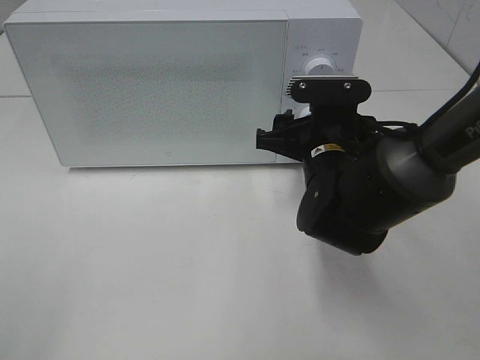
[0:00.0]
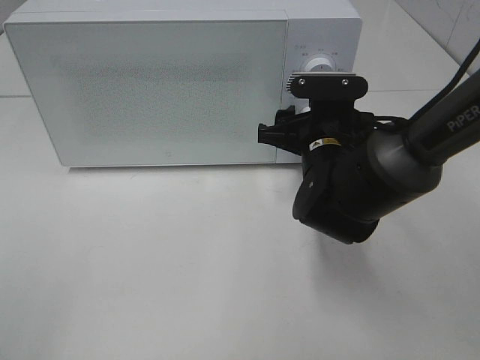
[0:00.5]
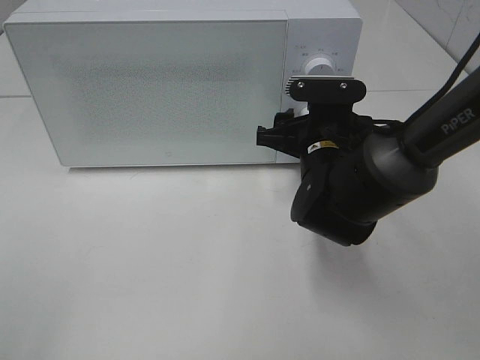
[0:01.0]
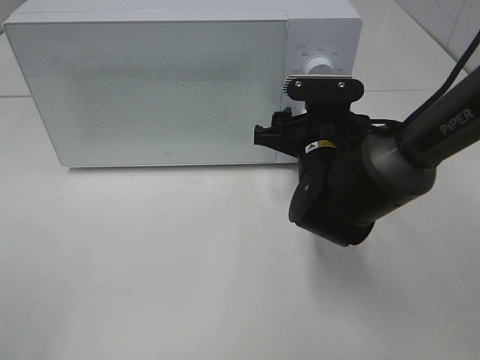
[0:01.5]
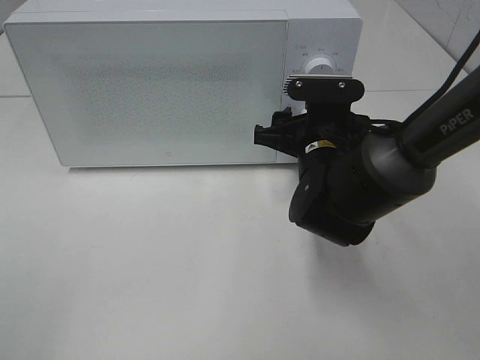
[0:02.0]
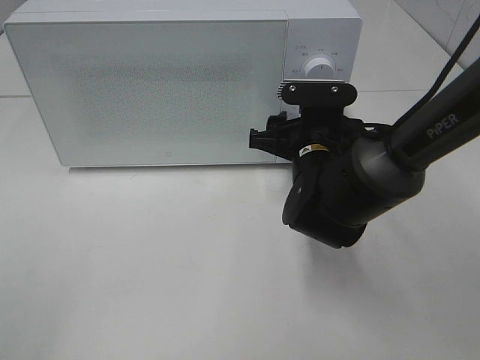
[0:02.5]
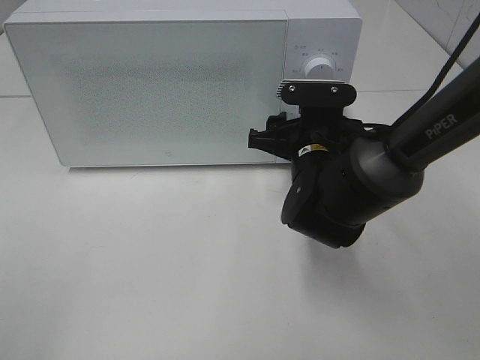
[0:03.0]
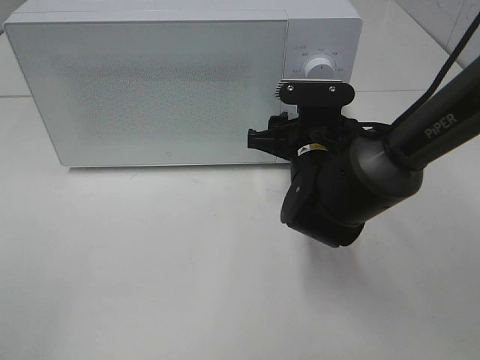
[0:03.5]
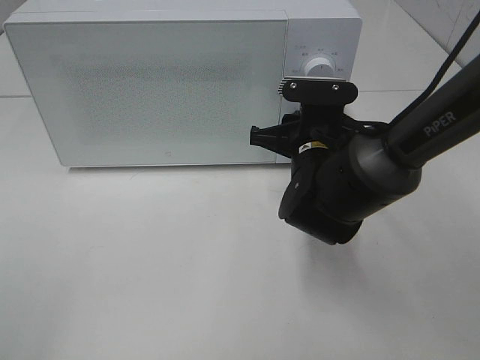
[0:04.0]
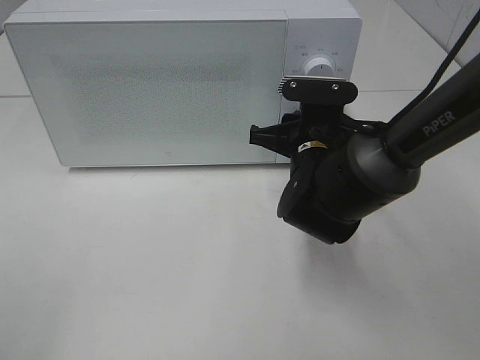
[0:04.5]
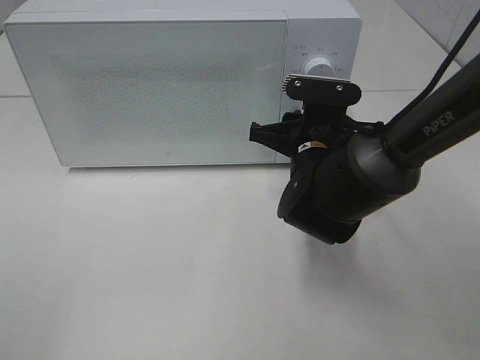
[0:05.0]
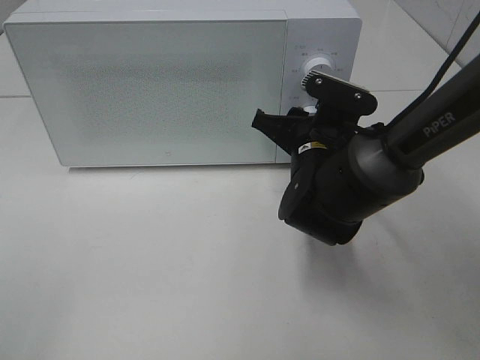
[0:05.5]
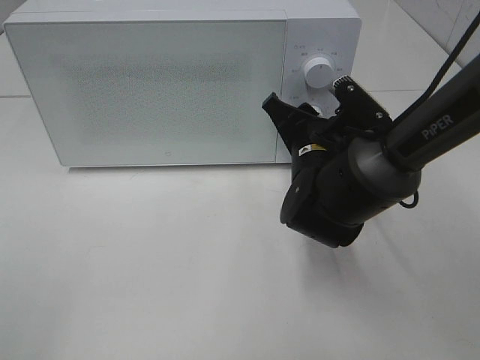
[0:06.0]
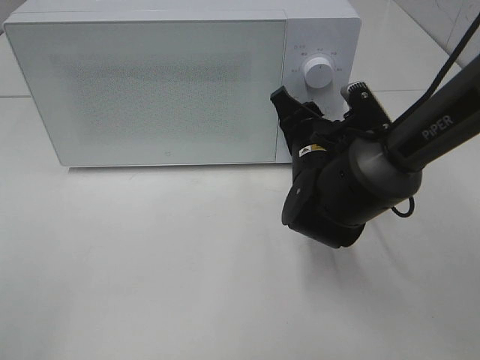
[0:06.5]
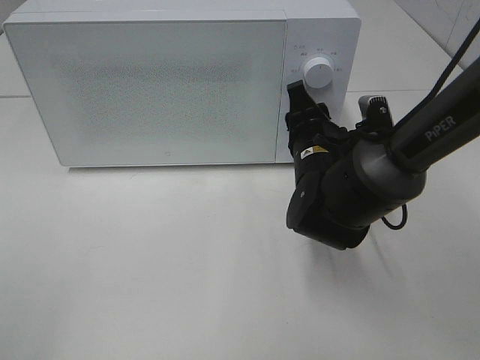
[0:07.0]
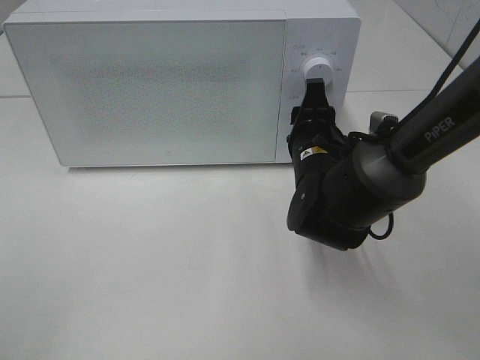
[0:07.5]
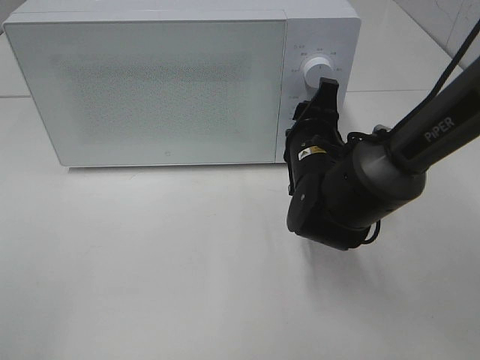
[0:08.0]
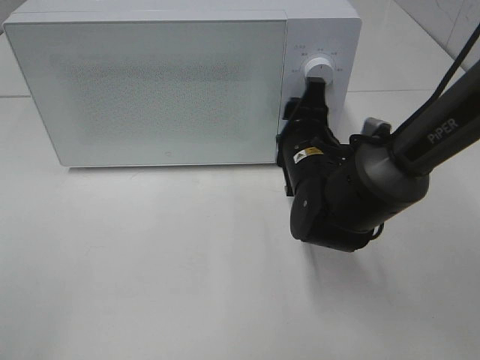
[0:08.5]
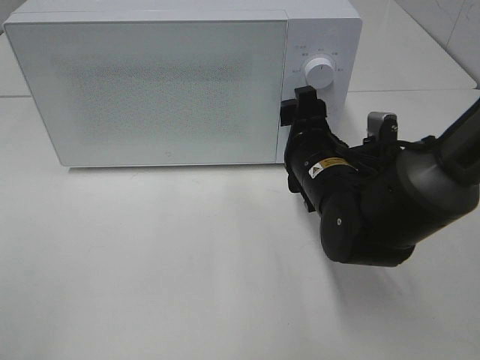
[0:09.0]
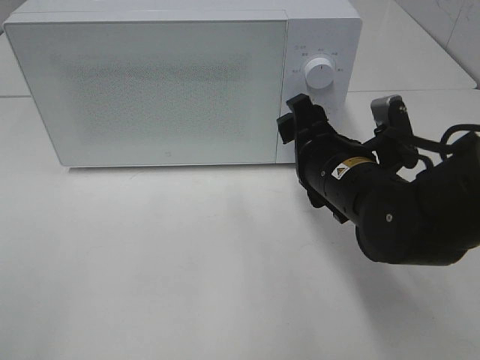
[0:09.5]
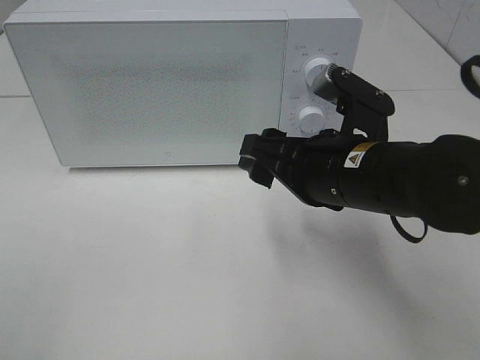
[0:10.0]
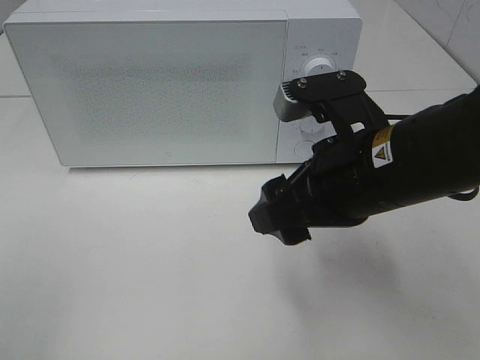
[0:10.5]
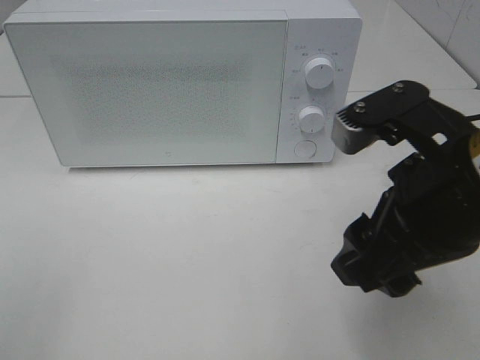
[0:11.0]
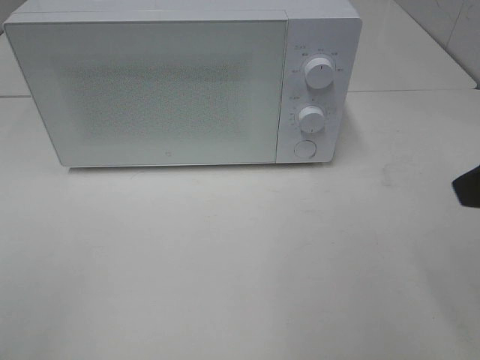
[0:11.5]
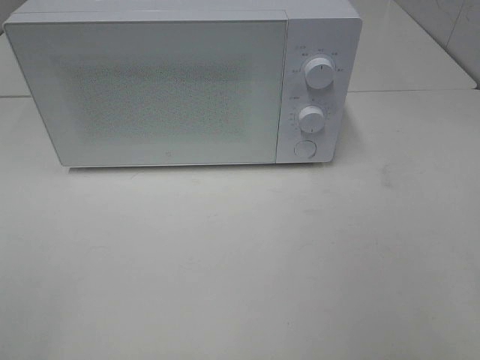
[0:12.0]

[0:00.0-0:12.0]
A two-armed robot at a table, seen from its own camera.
Task of the whole recording: Heat the burger.
Step, 0:00.0 to 0:08.5: Right hand: twist timer button.
0:00.0 to 0:02.0: There are only small adjustments of the grippers.
0:02.0 to 0:04.0: Both grippers stay about where they are.
0:08.0 to 0:10.0: The right gripper is displaced backward and upward by about 10 cm.
0:10.0 to 0:12.0: The right gripper is displaced to the right, backward and upward by roughly 25 cm.

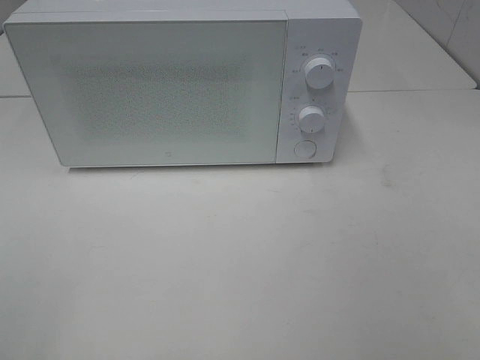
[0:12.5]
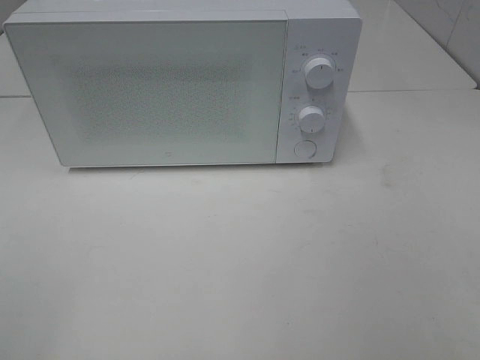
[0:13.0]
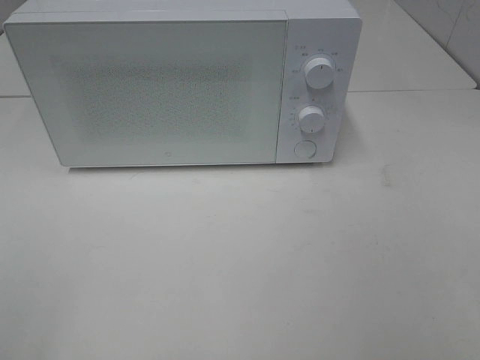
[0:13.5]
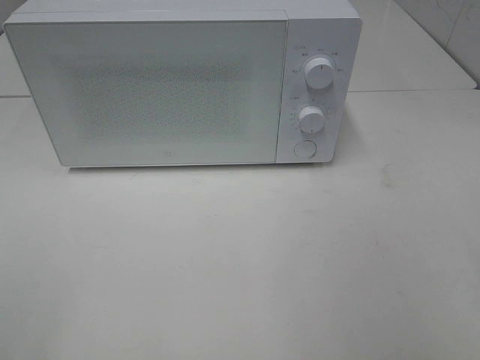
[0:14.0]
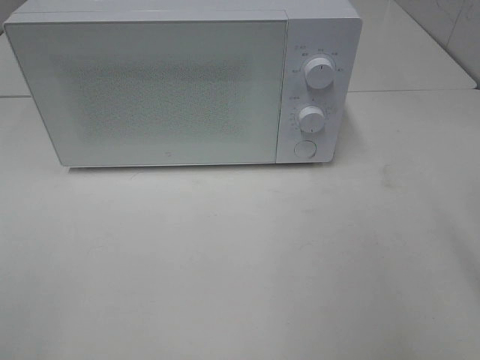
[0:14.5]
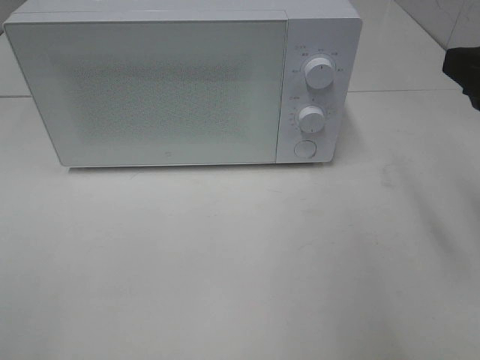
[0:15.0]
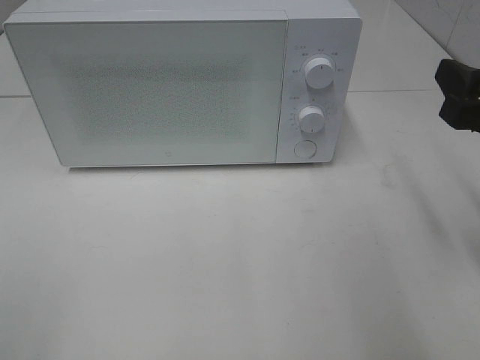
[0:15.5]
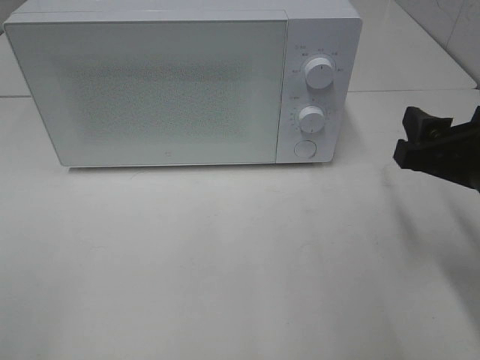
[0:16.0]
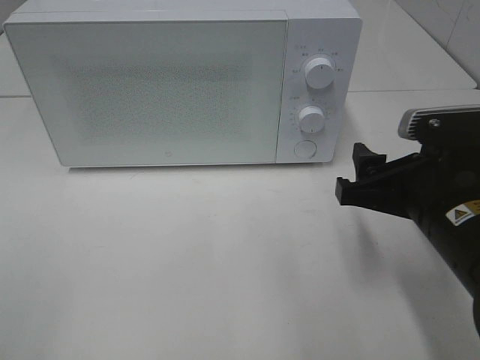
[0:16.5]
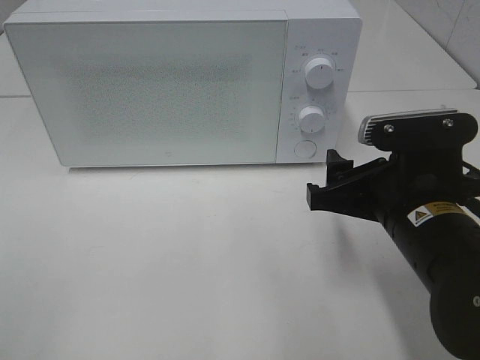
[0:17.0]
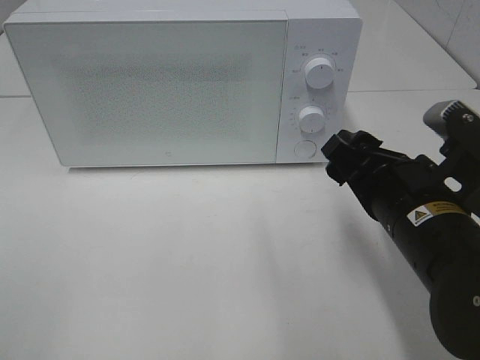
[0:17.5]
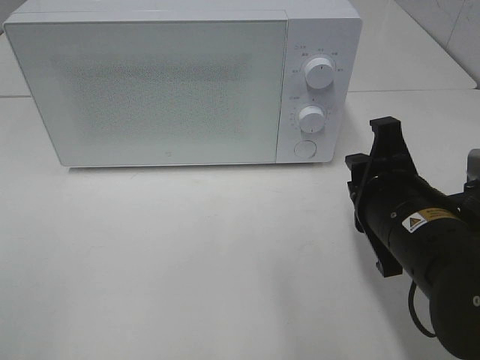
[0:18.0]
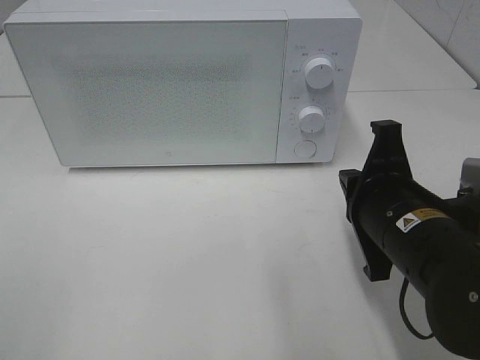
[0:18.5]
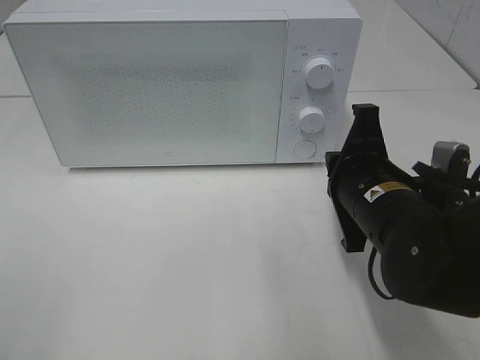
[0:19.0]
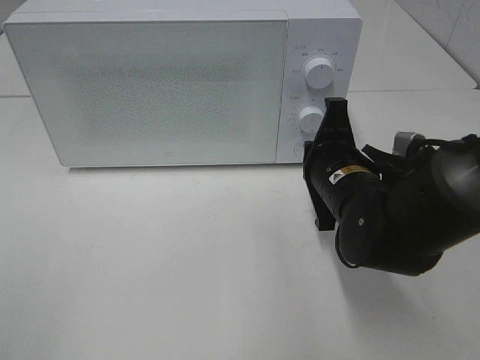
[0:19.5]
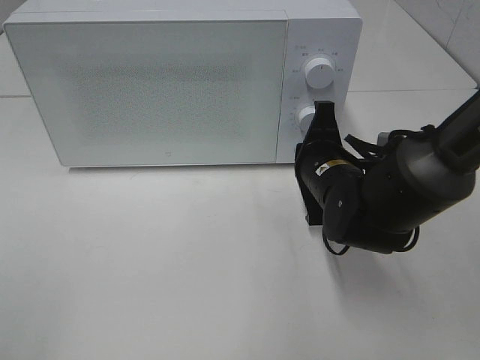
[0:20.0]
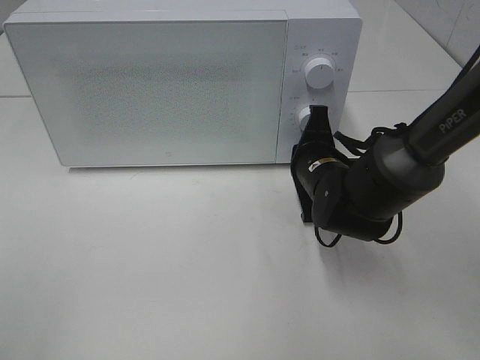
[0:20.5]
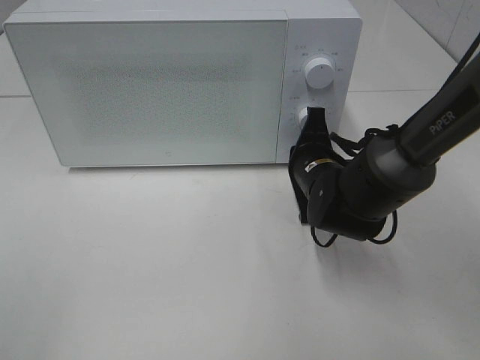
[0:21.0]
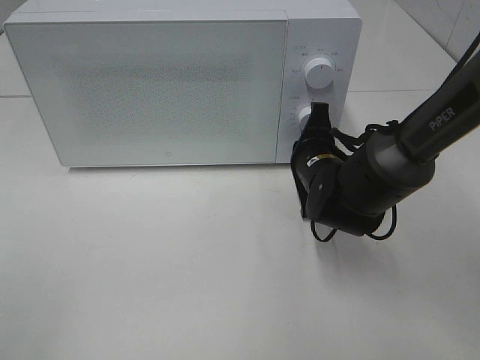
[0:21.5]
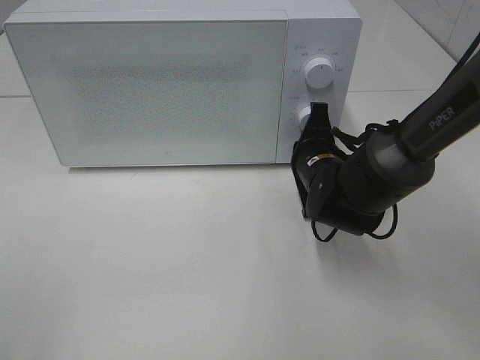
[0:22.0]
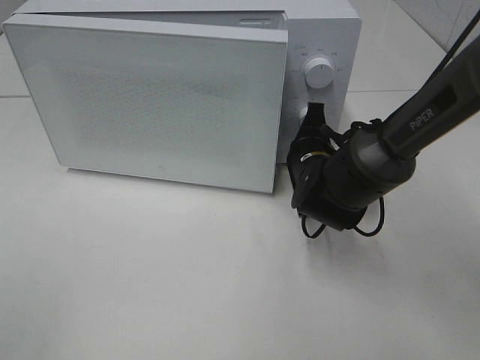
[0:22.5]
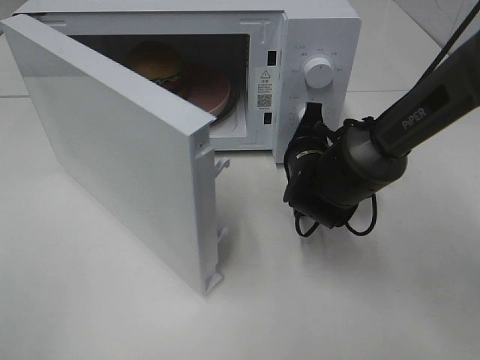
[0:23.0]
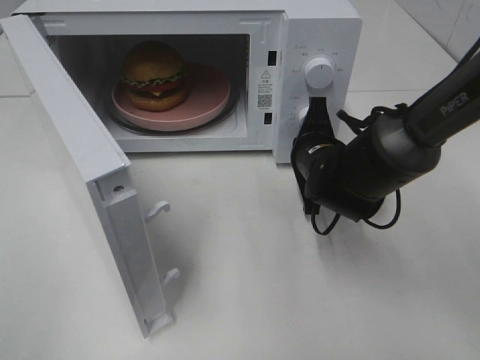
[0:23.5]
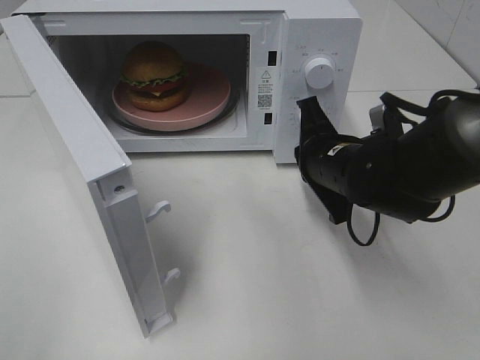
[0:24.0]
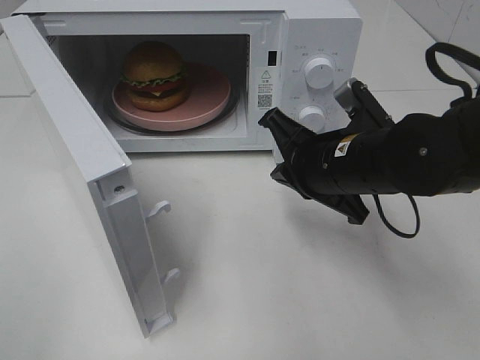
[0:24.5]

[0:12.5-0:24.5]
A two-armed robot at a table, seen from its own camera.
Task of the whole recording: Heat the burger.
Step, 0:12.5 to 0:24.0: Right hand: press the switch.
0:14.5 to 0:16.5: The right gripper shifts approximately 15 cm downward, to the left and forward.
0:16.5 to 0:18.5: The right gripper closes up.
0:18.5 to 0:20.5: The right gripper travels forward and downward by approximately 15 cm.
0:20.5 to 0:22.5: The grippers make only small movements.
0:22.5 to 0:24.5: The right gripper moves backward and upward, approximately 10 cm.

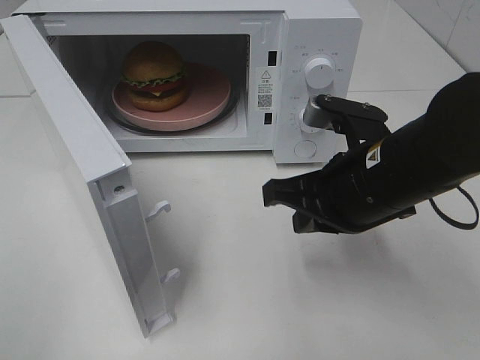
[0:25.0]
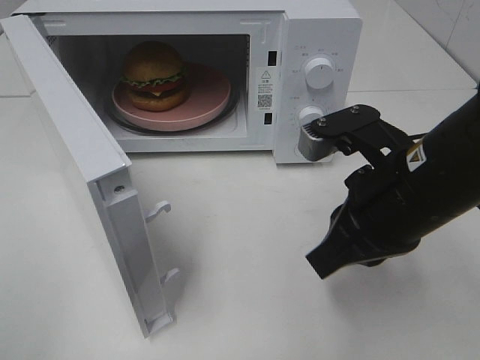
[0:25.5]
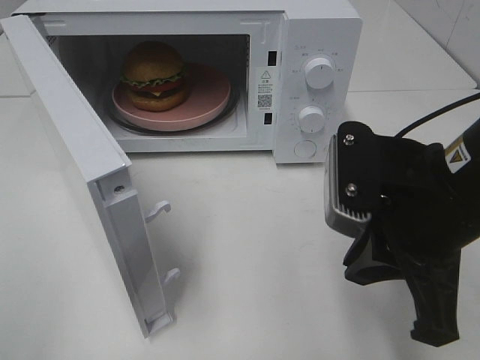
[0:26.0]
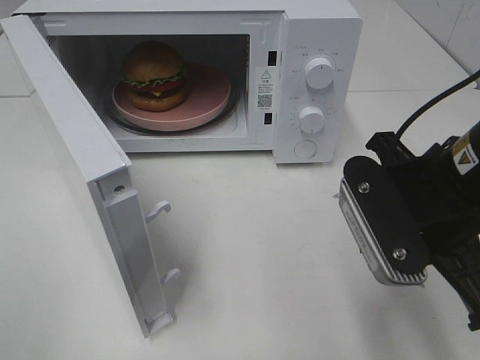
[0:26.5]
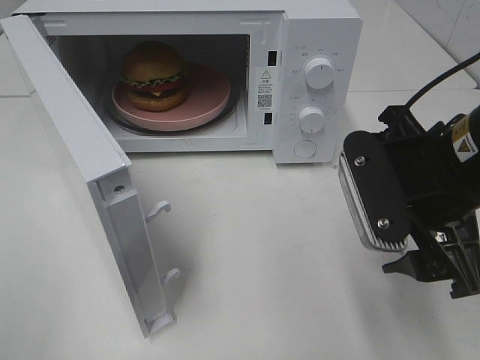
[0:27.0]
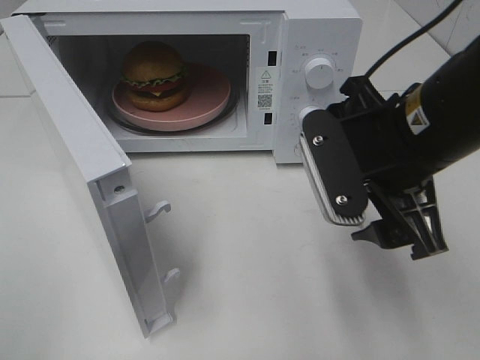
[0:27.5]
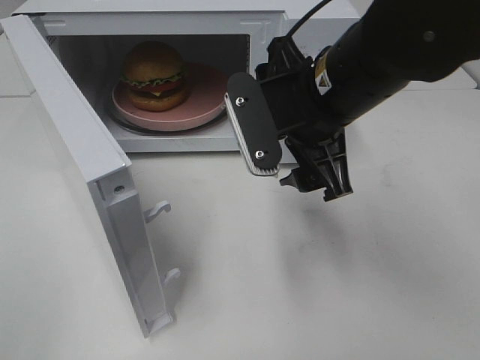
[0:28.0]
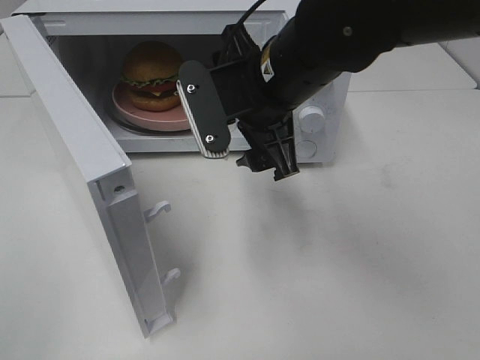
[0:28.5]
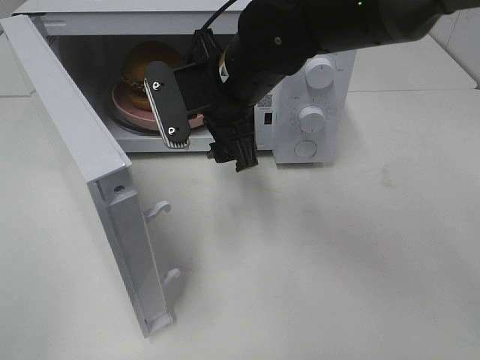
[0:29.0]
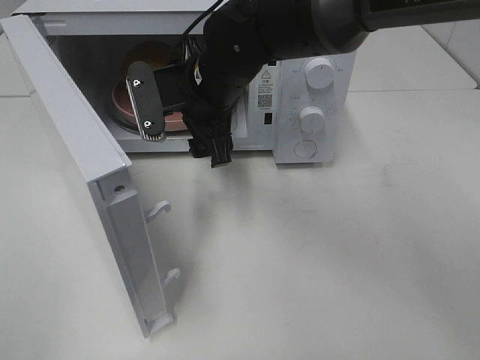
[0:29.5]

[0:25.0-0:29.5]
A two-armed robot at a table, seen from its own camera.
Task of the whole recording: Heat the burger.
0:25.0 to 0:27.0: The right gripper shifts by approximately 5 cm, and opens its fingers.
0:27.0 to 0:29.5: The right gripper goes some 25 cm to the left and forward.
